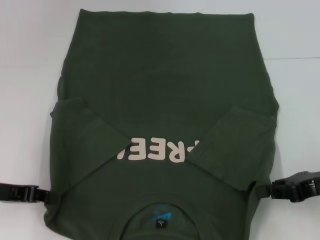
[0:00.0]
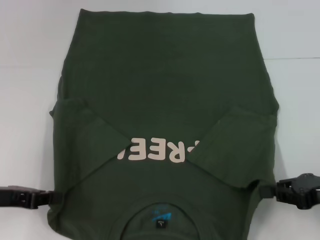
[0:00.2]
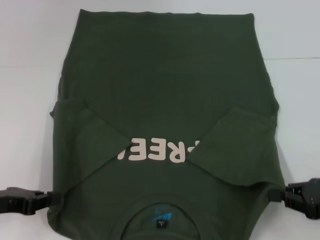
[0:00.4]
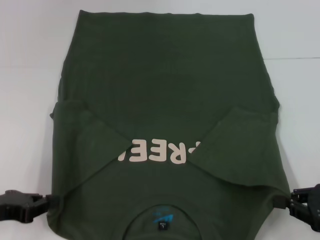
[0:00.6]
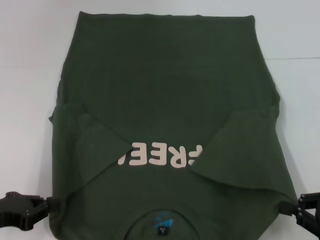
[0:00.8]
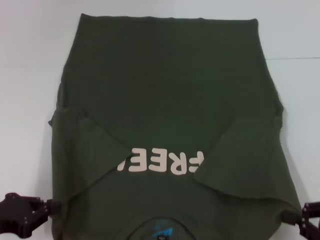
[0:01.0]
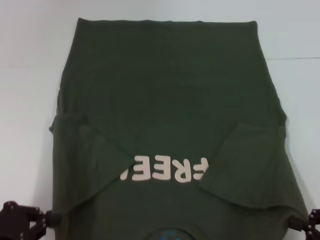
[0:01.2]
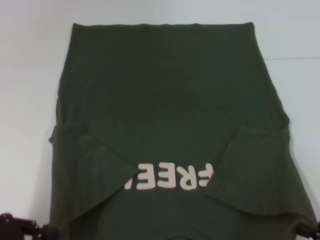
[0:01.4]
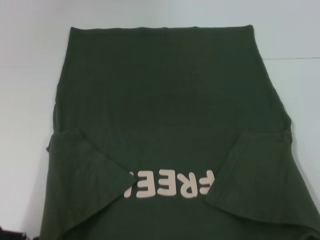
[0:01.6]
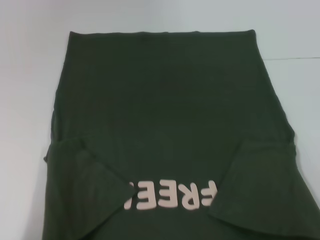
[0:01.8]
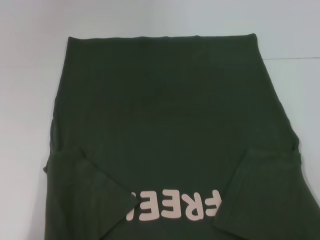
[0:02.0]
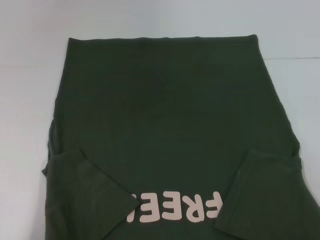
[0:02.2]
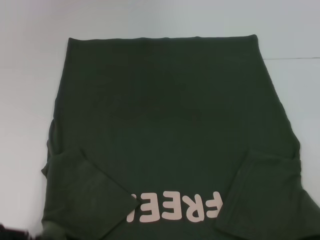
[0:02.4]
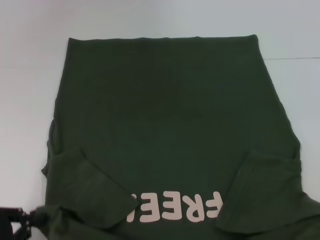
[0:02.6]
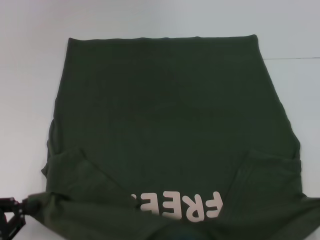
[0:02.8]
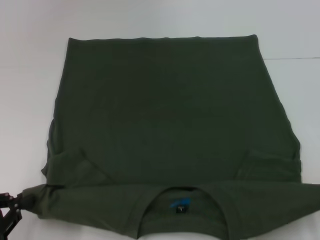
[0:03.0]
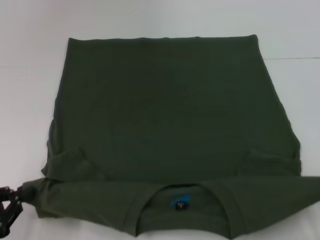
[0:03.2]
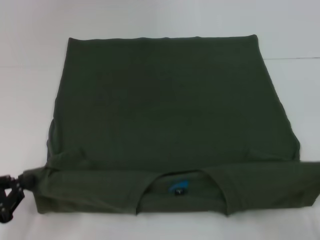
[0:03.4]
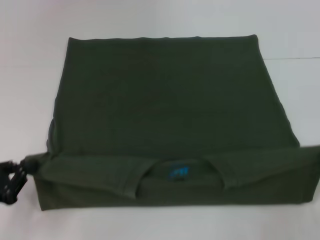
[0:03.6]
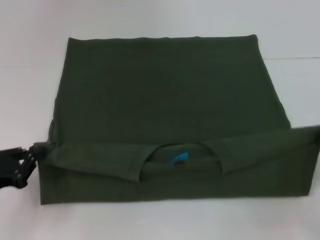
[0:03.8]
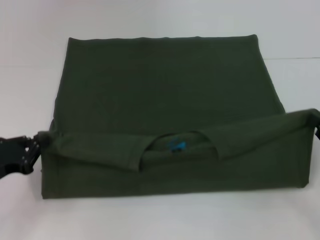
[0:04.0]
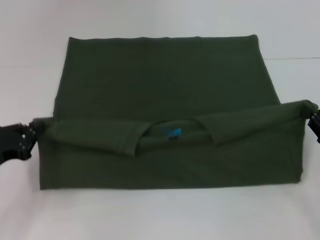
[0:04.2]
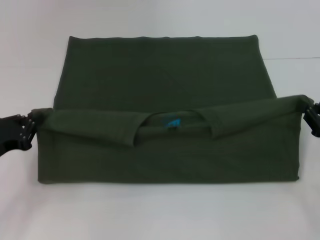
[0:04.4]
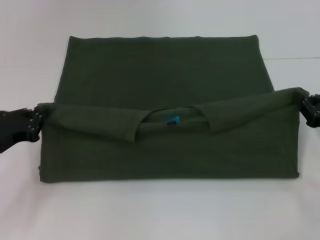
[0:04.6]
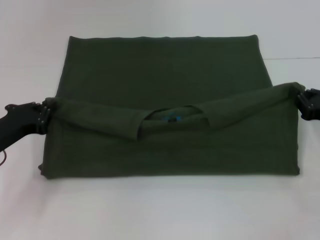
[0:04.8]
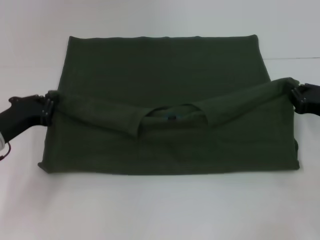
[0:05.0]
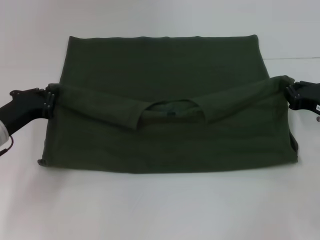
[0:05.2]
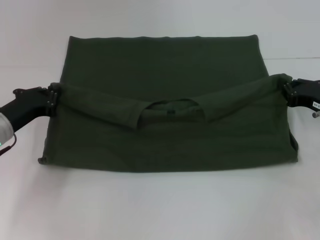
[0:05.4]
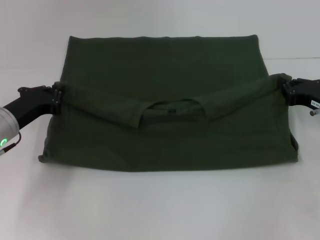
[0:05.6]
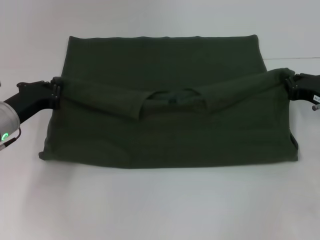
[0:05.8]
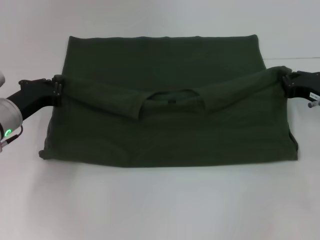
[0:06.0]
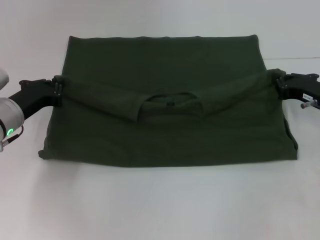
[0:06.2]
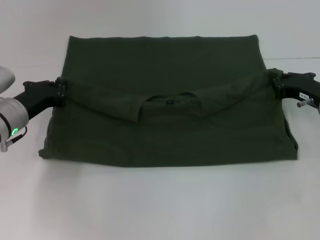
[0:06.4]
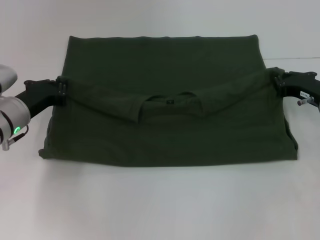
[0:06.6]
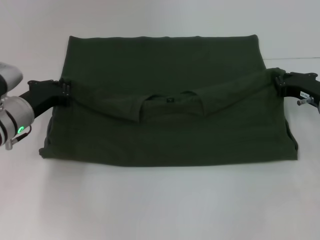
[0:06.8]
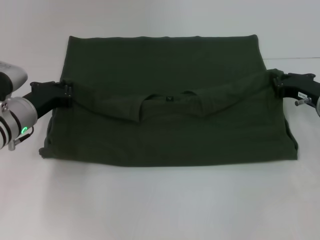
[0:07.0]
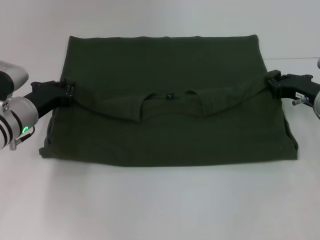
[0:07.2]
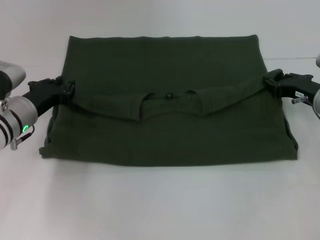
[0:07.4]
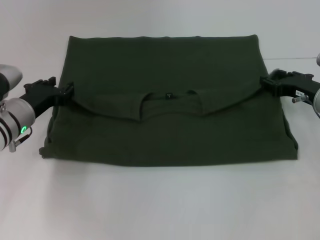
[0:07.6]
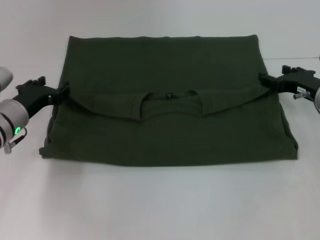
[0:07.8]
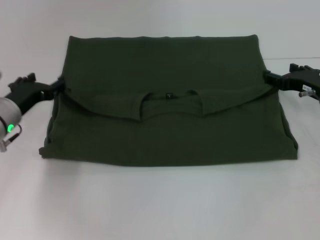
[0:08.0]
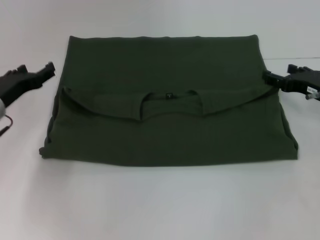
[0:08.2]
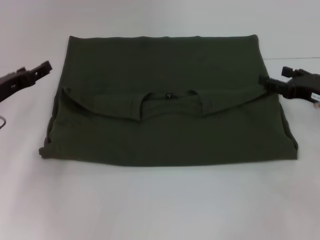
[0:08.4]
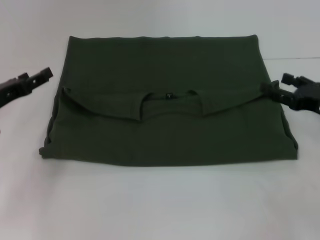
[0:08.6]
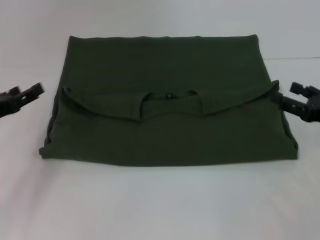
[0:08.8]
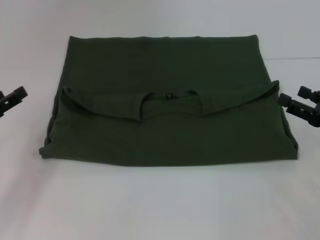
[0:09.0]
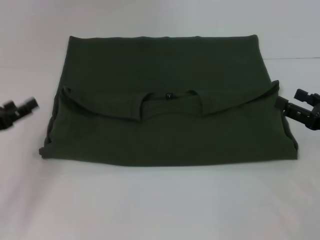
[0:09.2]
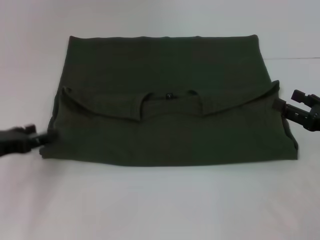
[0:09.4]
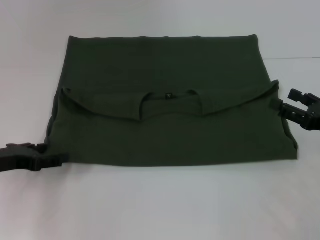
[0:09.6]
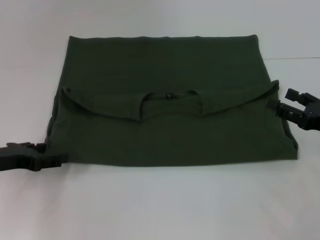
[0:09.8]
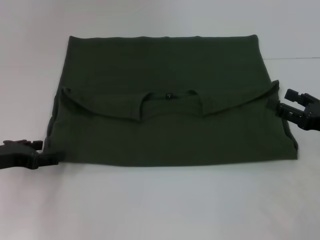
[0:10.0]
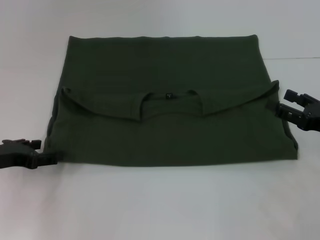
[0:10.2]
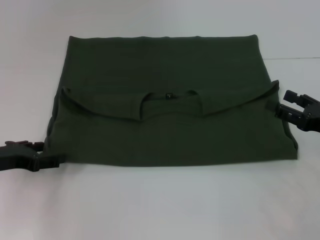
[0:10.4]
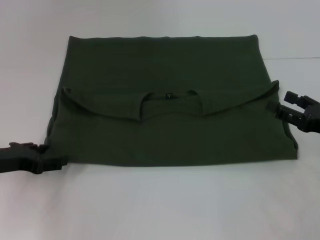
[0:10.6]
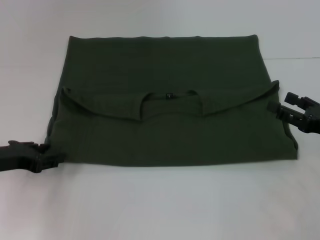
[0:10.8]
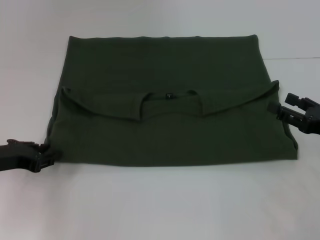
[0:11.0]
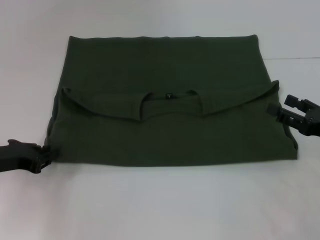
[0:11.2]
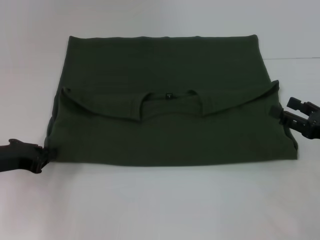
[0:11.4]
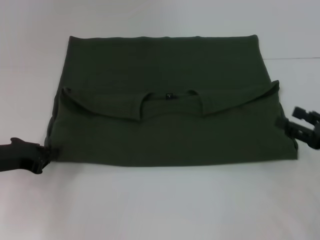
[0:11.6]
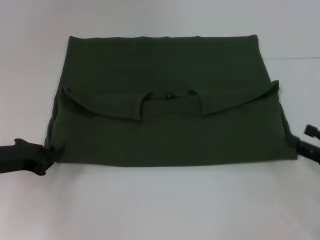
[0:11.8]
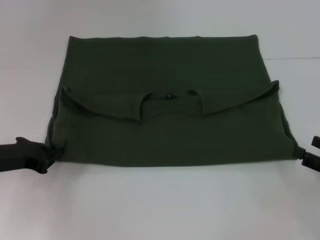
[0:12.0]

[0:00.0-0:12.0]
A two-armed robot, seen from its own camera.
Step, 0:00.0 to 0:07.6: Fold the clothes with your left hand.
Step, 0:00.0 to 0:07.6: Fold the clothes with your right hand.
0:00.0 to 0:01.6: The right gripper travels backward and downward by some 15 cm; the left gripper moves backward, about 10 cm.
0:01.6 to 0:03.0: There are only small adjustments of the grippers.
0:03.0 to 0:04.4: The grippers both shift forward by approximately 15 cm.
0:04.4 to 0:06.0: The right gripper is displaced forward by about 10 cm; the left gripper is displaced forward and to the right by some 10 cm.
0:06.0 to 0:07.6: The right gripper opens its fingers.
0:07.6 to 0:09.0: The right gripper shifts some 10 cm backward, and opens up; the left gripper goes about 15 cm to the left and backward, and opens up.
0:10.4 to 0:12.0: The right gripper heads backward, covering roughly 5 cm.

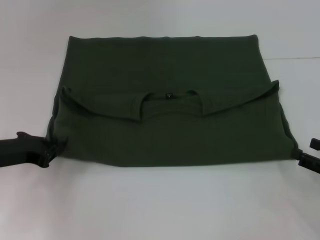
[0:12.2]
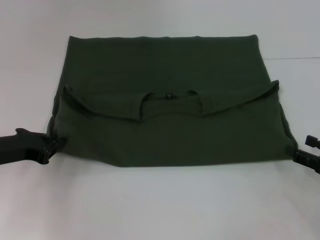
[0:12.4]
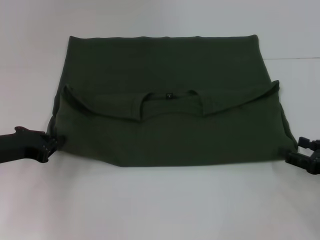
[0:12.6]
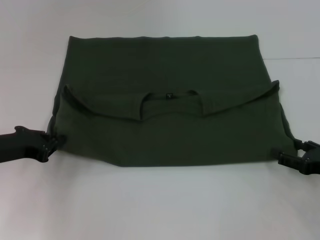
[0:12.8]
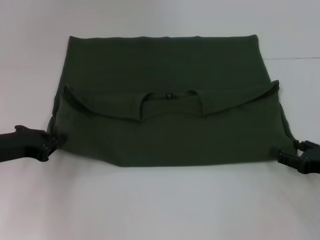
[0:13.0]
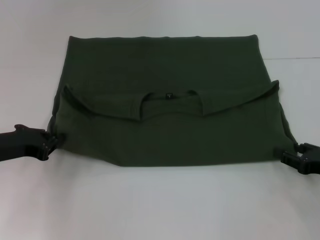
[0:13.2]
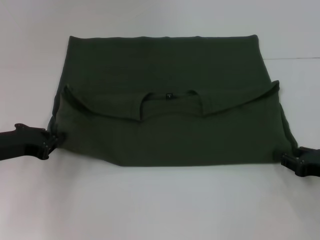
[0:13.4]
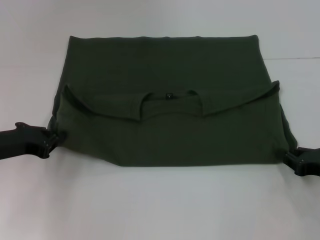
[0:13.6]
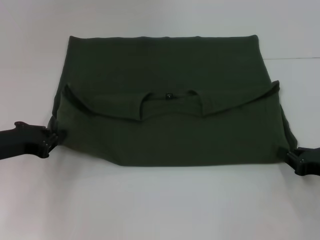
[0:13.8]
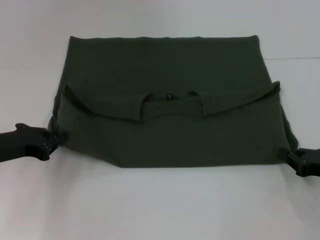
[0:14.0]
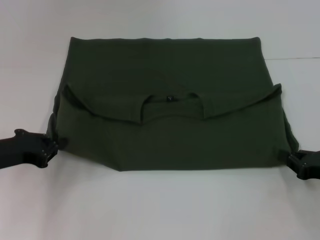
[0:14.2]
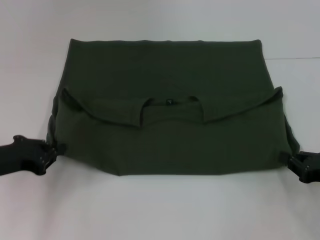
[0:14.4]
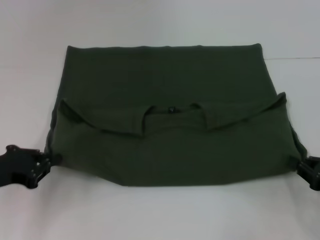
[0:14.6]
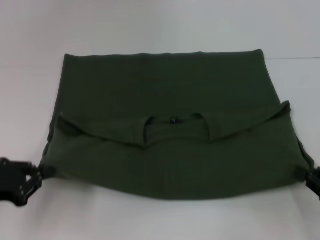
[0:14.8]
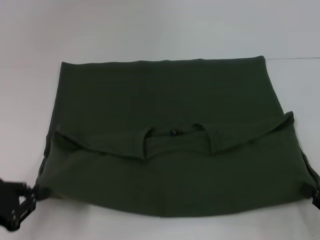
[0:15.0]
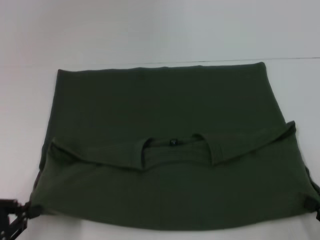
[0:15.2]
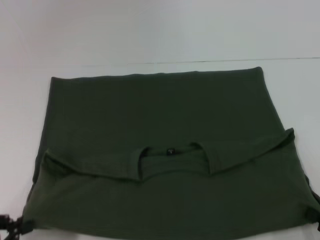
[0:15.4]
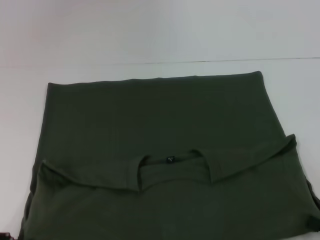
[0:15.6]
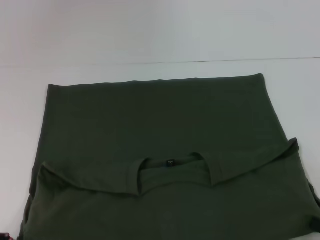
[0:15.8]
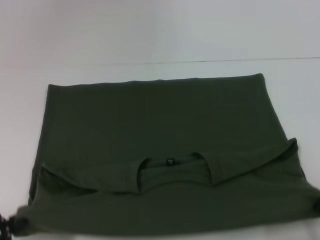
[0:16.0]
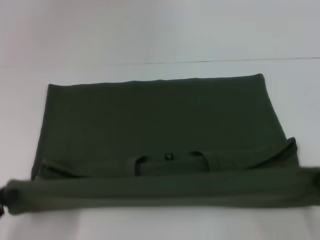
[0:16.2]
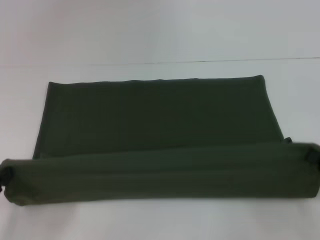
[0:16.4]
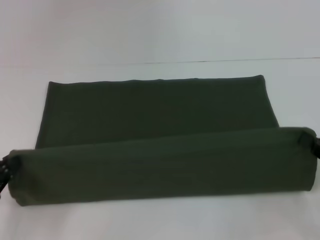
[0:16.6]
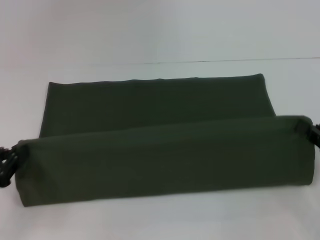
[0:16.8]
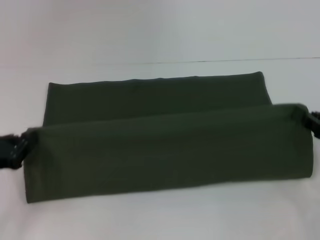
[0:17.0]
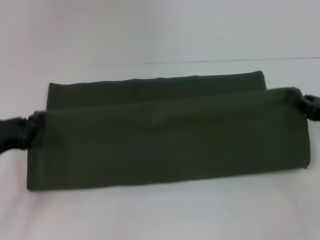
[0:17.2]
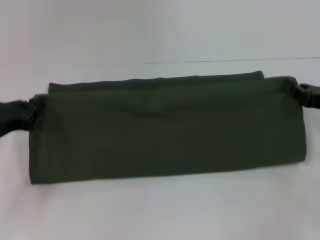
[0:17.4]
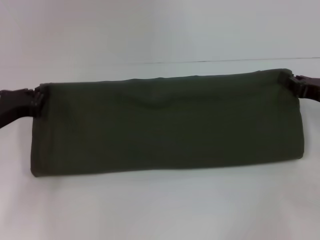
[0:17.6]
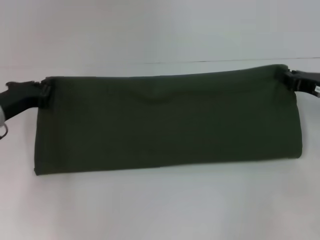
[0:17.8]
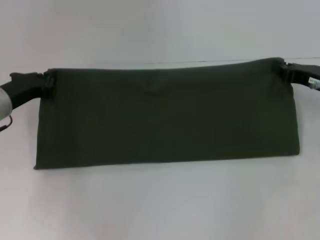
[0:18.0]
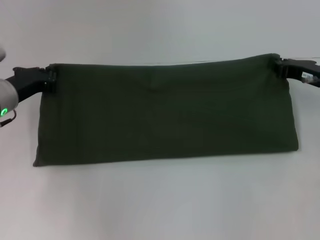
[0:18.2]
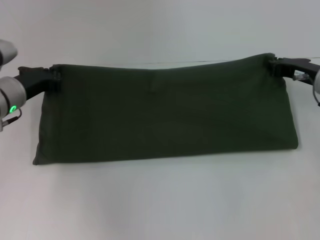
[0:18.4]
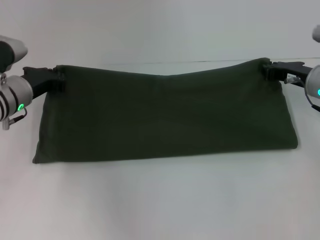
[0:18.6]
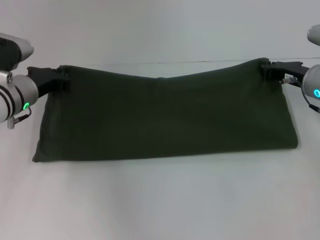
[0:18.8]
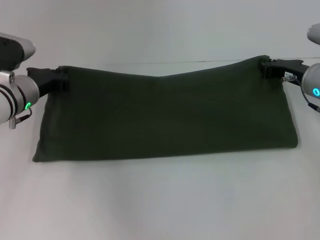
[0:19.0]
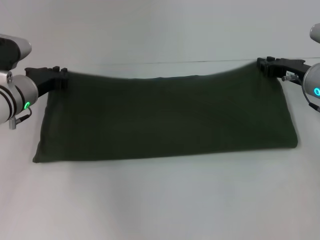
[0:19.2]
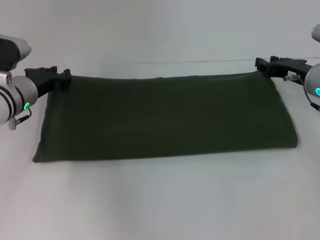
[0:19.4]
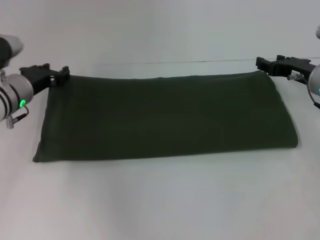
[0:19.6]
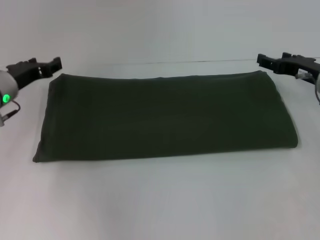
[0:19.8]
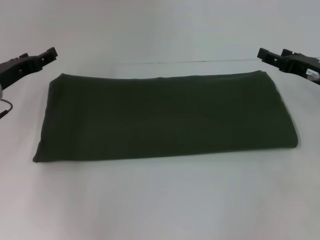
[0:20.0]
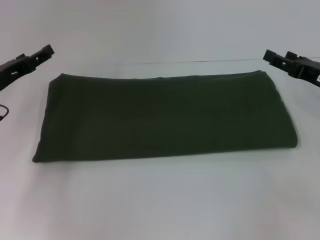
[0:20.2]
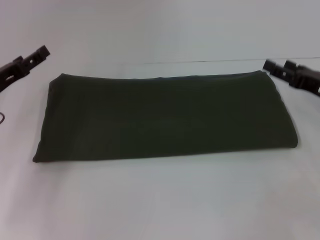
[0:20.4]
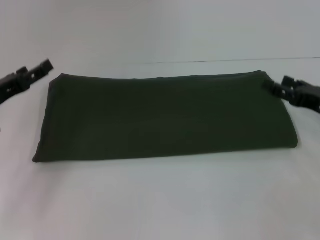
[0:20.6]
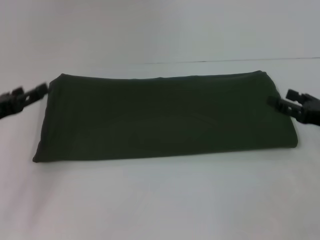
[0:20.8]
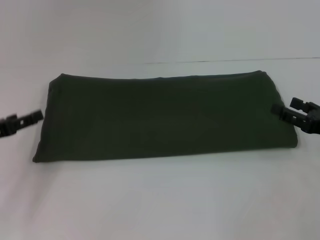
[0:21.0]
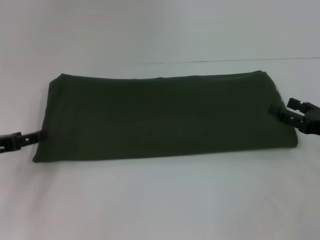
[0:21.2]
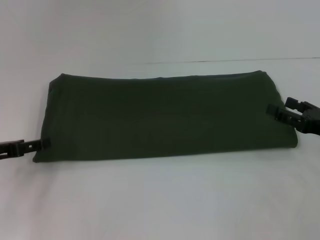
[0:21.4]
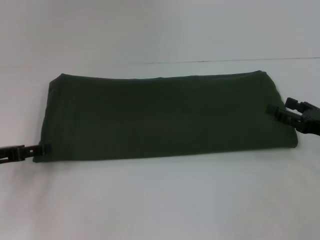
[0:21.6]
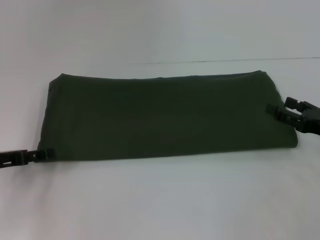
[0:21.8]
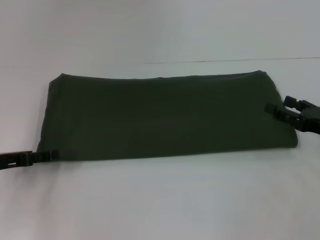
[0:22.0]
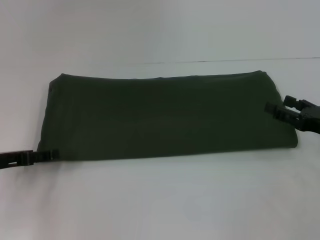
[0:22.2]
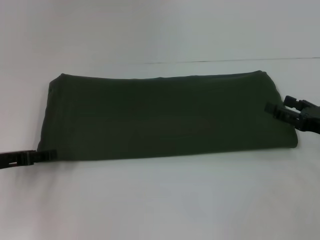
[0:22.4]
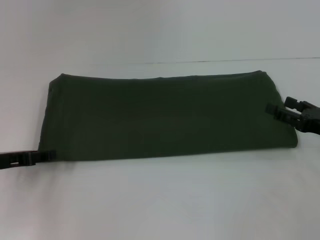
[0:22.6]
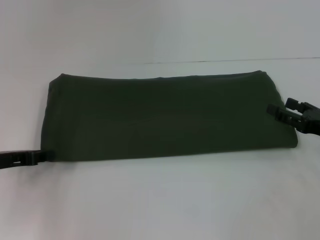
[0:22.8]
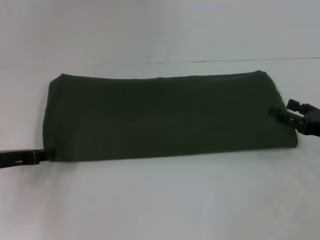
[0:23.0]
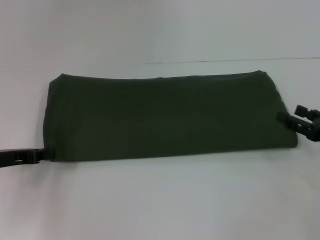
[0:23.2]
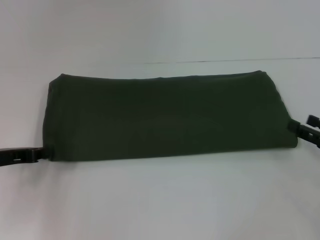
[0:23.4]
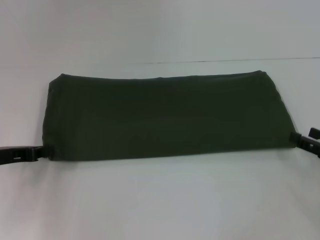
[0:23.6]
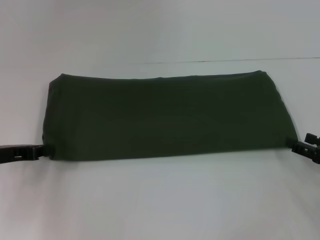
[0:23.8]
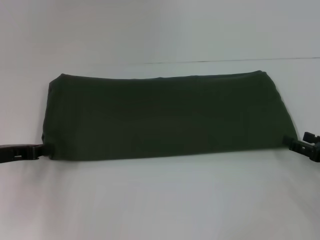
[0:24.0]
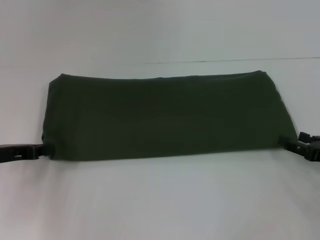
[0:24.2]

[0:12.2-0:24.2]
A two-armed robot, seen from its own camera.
Step, 0:12.2 to 0:15.4: Pull the clothes with your left hand.
Step, 0:12.2 to 0:15.4: Pull the clothes with your right hand.
Step, 0:15.6 to 0:19.6: Fold the clothes with your right hand.
0:12.2 to 0:13.8: The right gripper closes up.
0:13.8 to 0:15.2: Both grippers move backward, some 10 cm.
0:15.2 to 0:16.6: The right gripper travels forward by about 5 cm.
0:16.6 to 0:18.2: The right gripper heads forward, covering about 15 cm. The left gripper travels forward and to the right by approximately 20 cm.
0:18.2 to 0:19.8: The right gripper opens its fingers. Meanwhile the left gripper opens up.
0:19.8 to 0:21.2: The left gripper heads backward and to the left, covering roughly 15 cm, and opens its fingers; the right gripper is displaced backward by some 10 cm, and opens.
0:21.2 to 0:22.6: There are only small adjustments of the grippers.
0:22.6 to 0:24.2: The left gripper closes.
